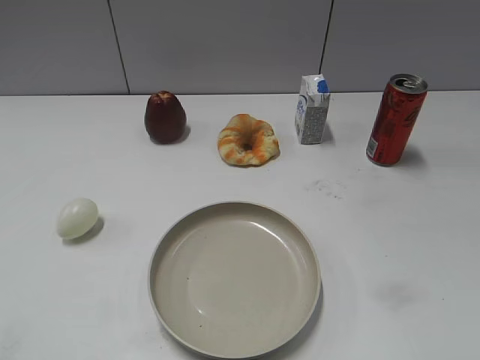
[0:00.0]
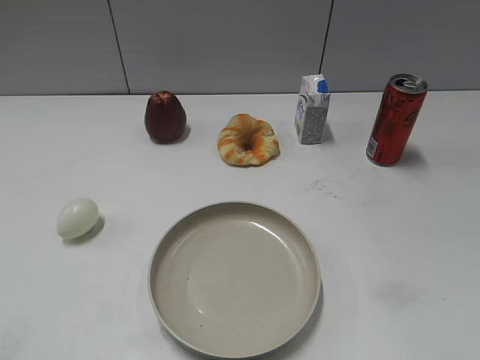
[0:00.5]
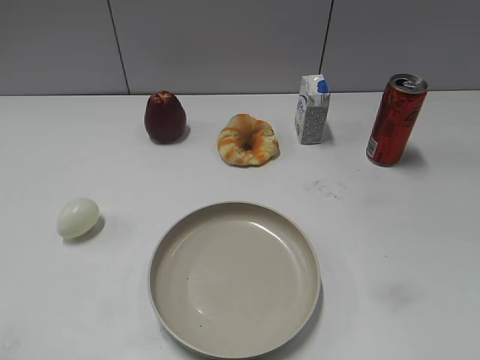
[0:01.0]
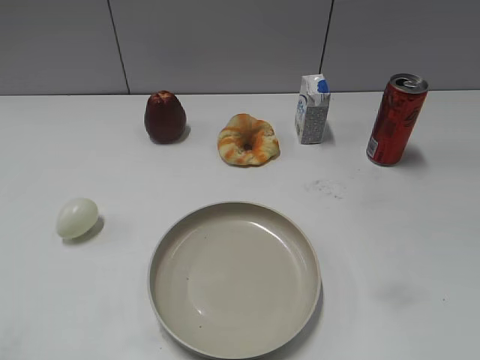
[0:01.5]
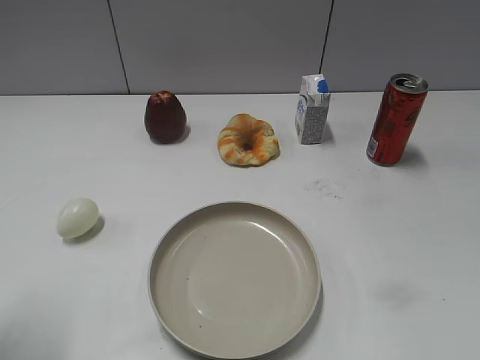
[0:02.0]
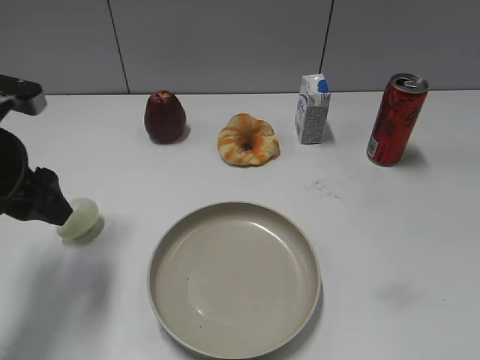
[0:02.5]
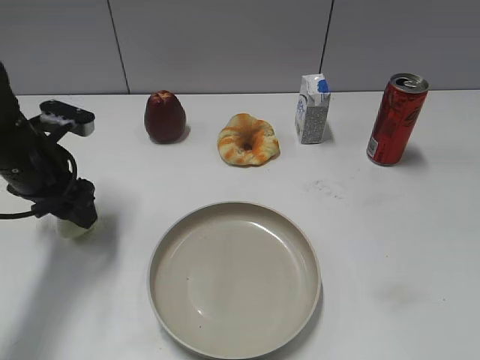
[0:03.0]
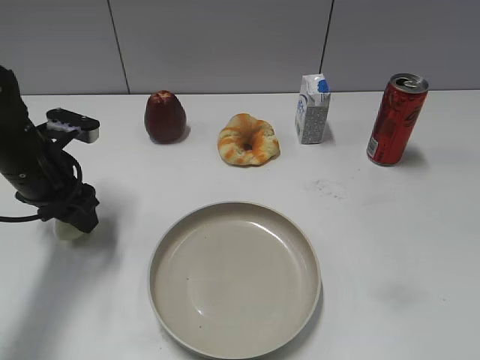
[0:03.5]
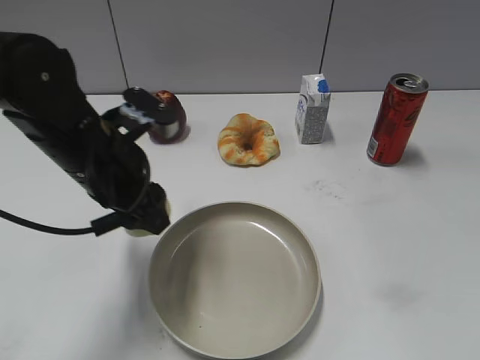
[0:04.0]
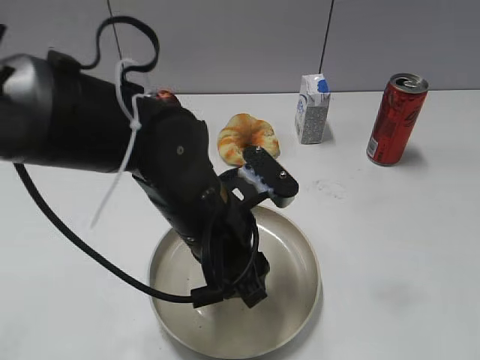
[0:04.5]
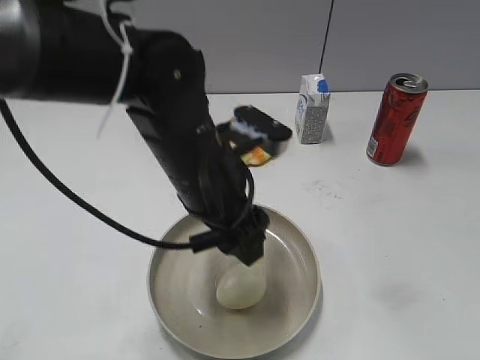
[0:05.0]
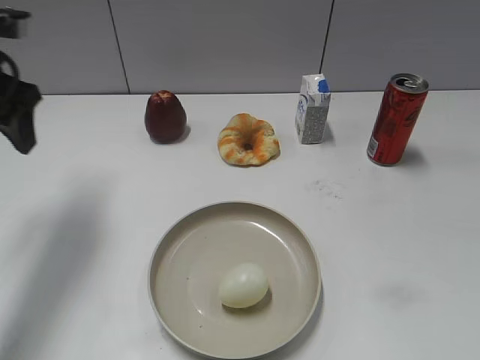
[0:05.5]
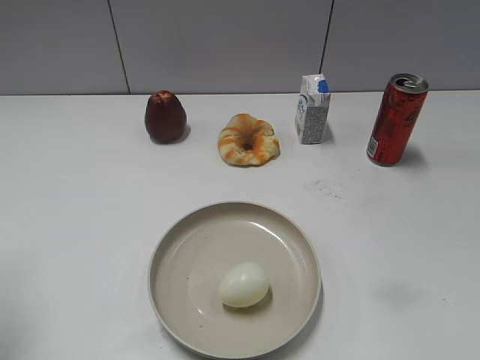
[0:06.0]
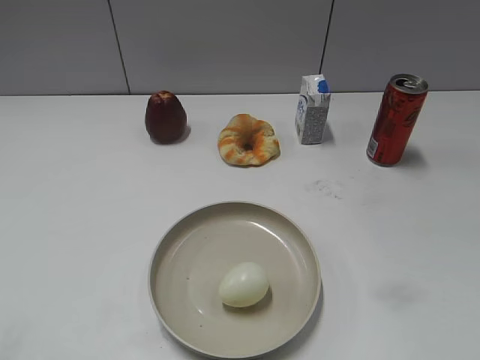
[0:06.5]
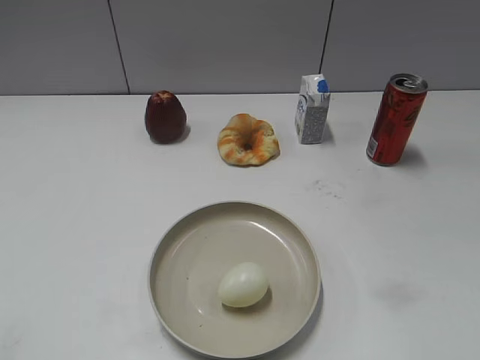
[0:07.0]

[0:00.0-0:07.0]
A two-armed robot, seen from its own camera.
Step, 0:01.5 to 0:03.5: Grasp the egg with left gripper.
Step, 0:04.0 to 0:04.5: Place the egg on the plate with left gripper.
0:02.0 to 0:03.5: The left gripper travels forward and downward by approximately 20 cm, and closes up.
0:03.5 to 0:05.0: The left gripper moves to the right and backward, some 20 cm, and opens its fingers.
0:05.0 to 0:07.0: The left gripper moves to the left and backward, roughly 35 cm.
